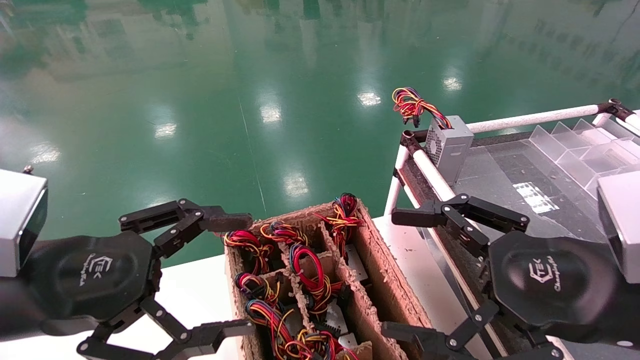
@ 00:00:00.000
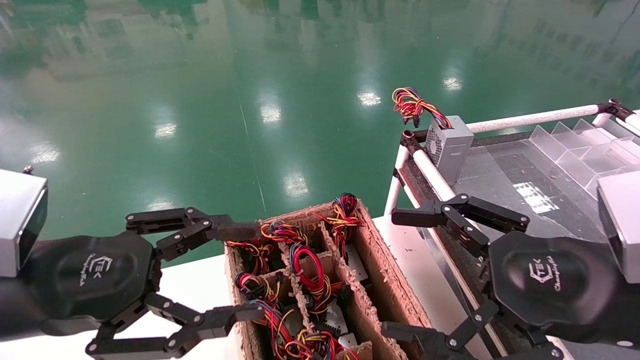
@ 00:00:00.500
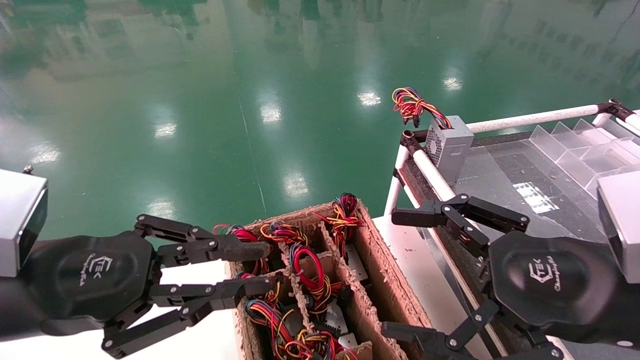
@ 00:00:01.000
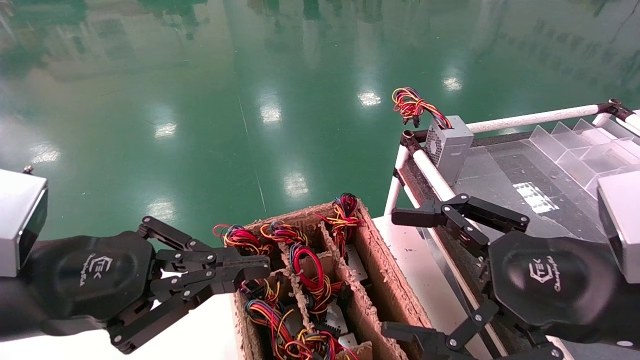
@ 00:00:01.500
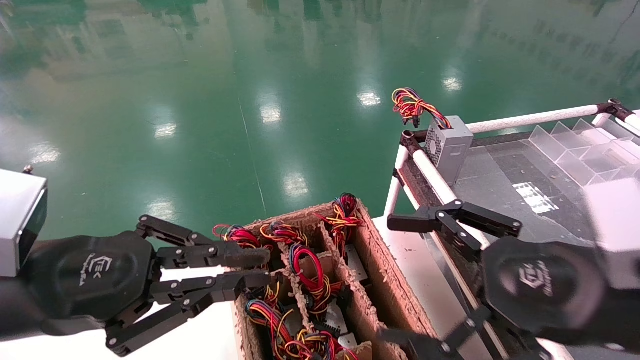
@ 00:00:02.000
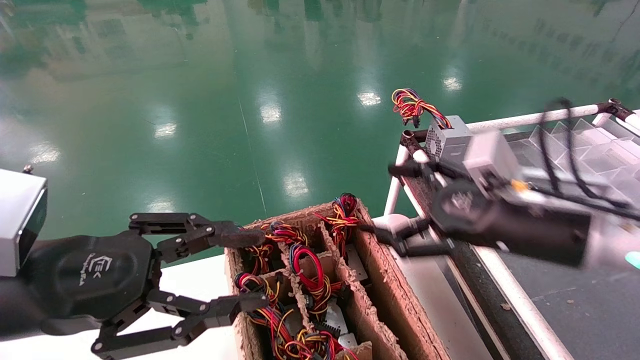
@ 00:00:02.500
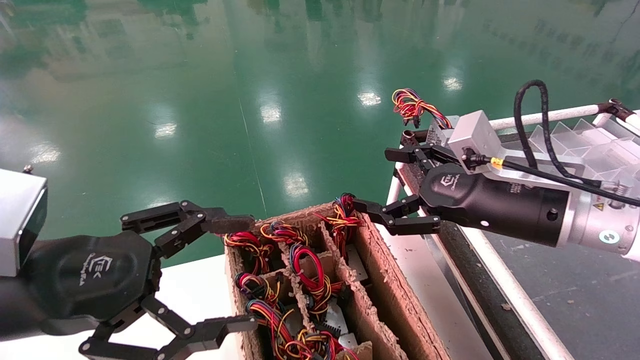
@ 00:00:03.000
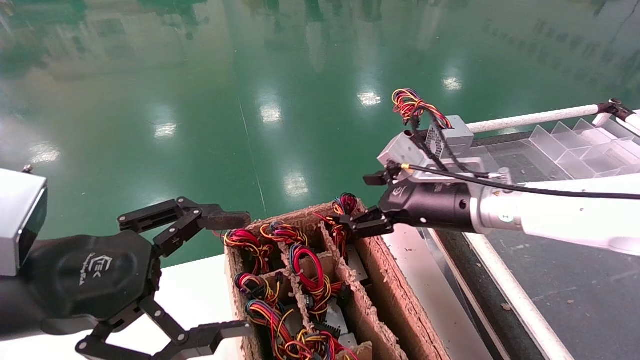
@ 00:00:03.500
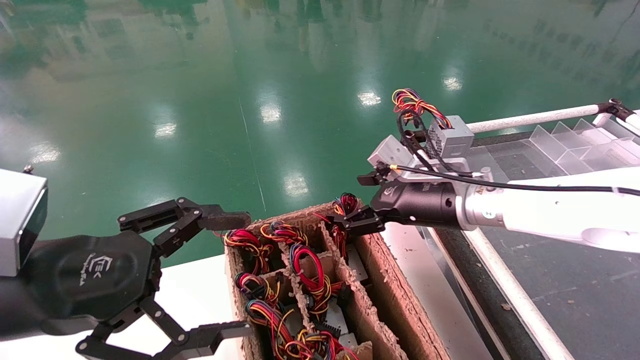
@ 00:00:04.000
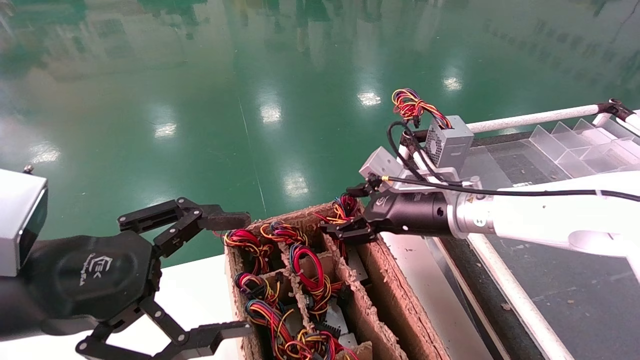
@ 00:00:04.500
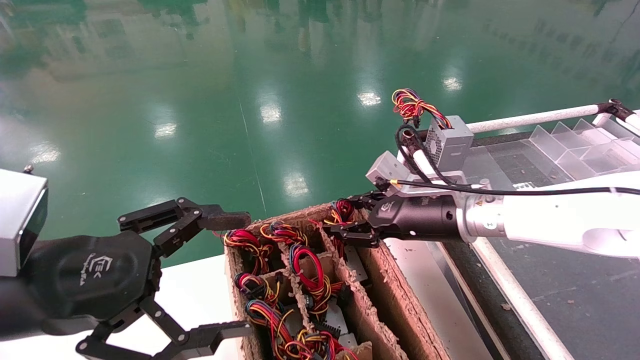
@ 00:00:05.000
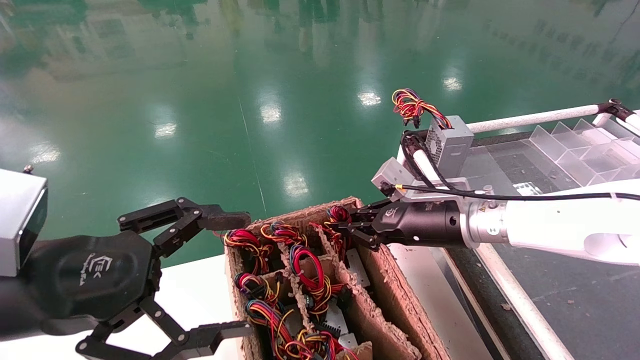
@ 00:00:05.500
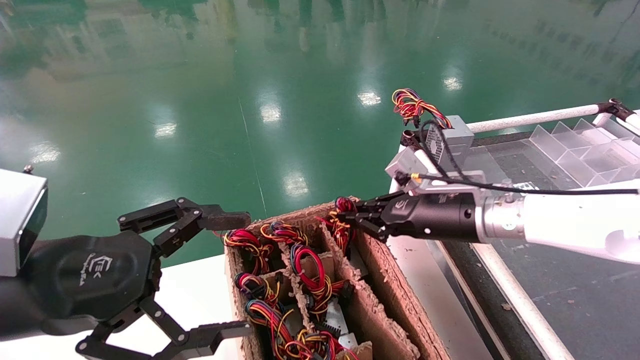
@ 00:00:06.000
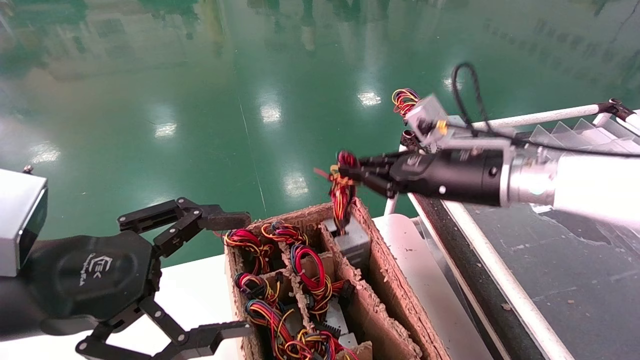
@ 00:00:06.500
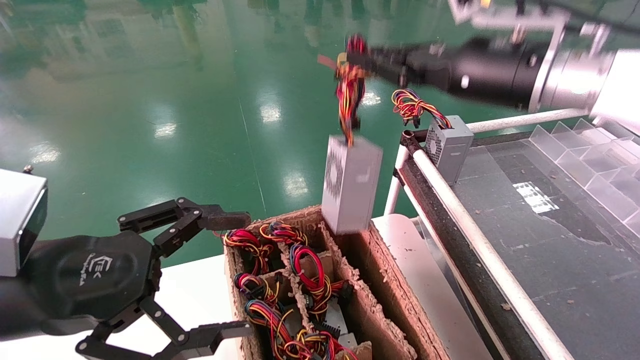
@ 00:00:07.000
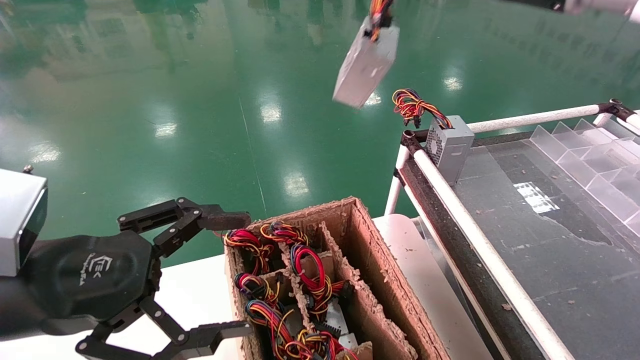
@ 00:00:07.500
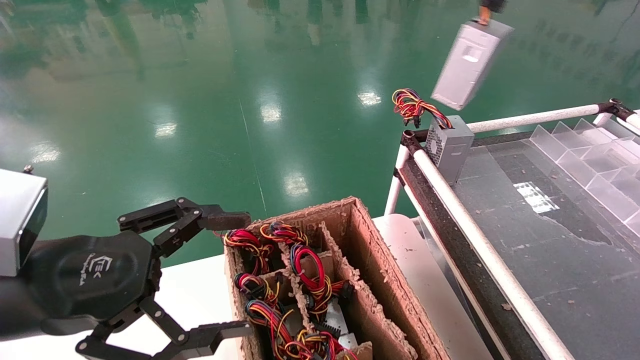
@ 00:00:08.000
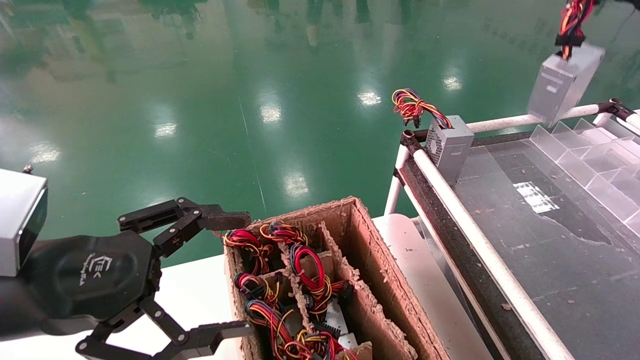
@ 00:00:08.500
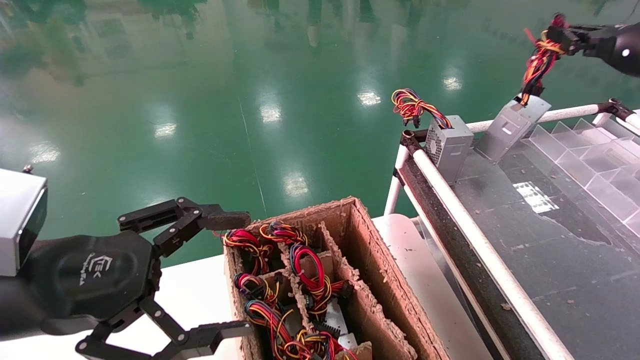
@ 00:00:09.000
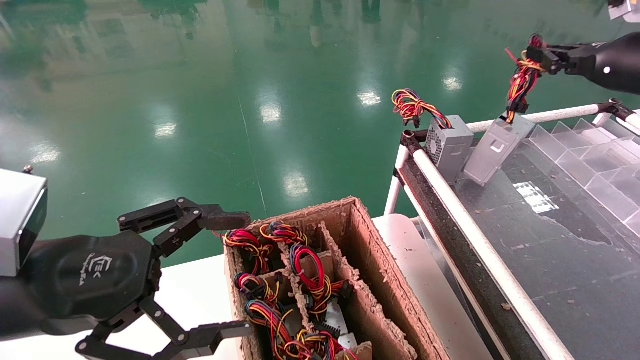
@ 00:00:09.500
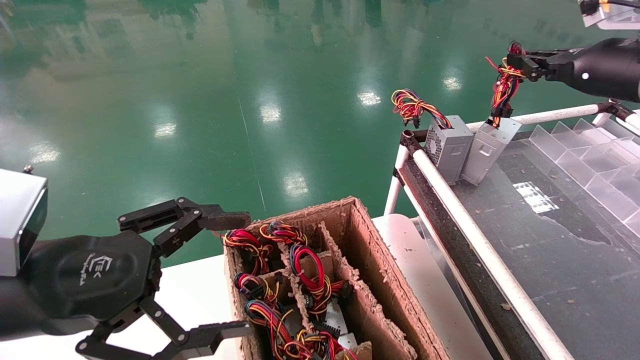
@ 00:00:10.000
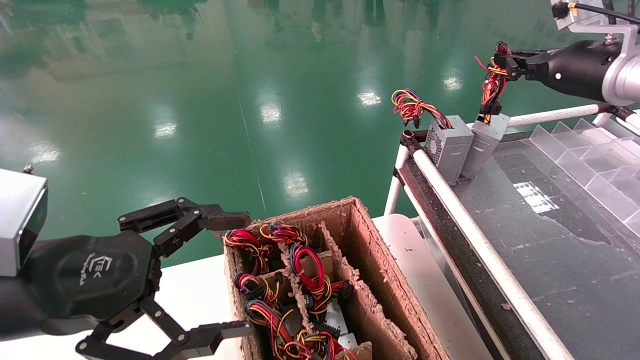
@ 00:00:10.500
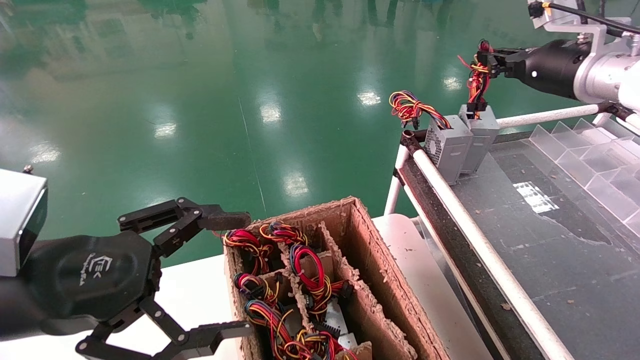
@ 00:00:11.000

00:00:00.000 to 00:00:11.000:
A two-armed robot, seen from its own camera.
Step, 00:00:01.500 to 00:00:05.500: Grab and lift the power supply from the large box.
00:00:00.000 to 00:00:02.000: The left gripper closes its fingers.
00:00:02.000 to 00:00:03.500: The right gripper travels forward and to the left by about 20 cm. The left gripper opens.
00:00:03.500 to 00:00:05.500: The right gripper closes its fingers.
00:00:05.500 to 00:00:07.500: The right gripper is displaced upward by roughly 30 cm.
00:00:07.500 to 00:00:09.000: The right gripper travels to the right by approximately 15 cm.
00:00:09.000 to 00:00:11.000: The right gripper is displaced to the left by some 10 cm.

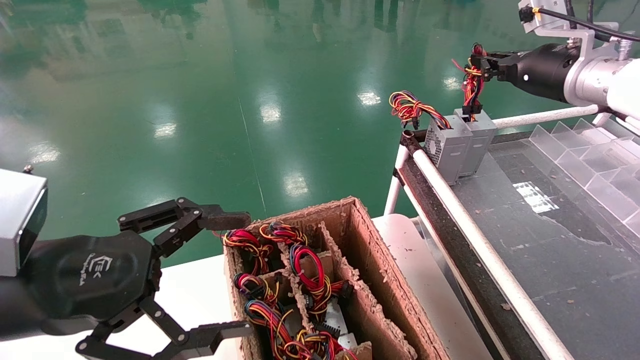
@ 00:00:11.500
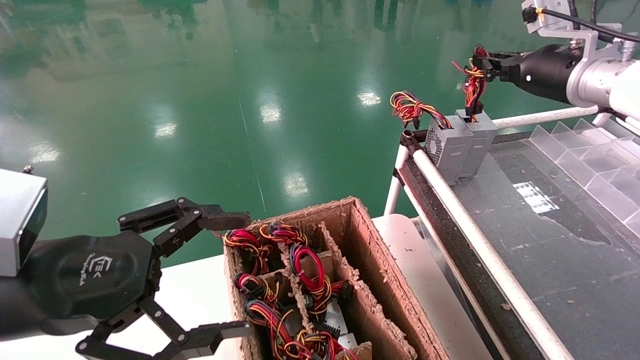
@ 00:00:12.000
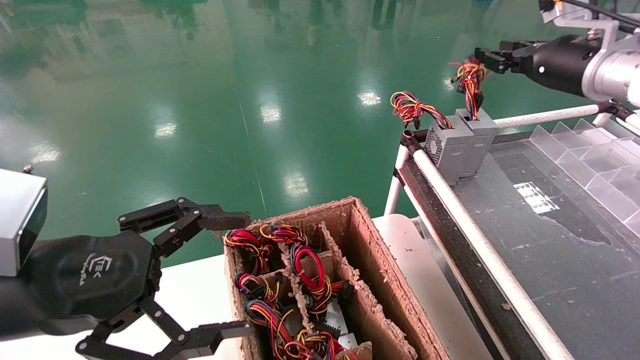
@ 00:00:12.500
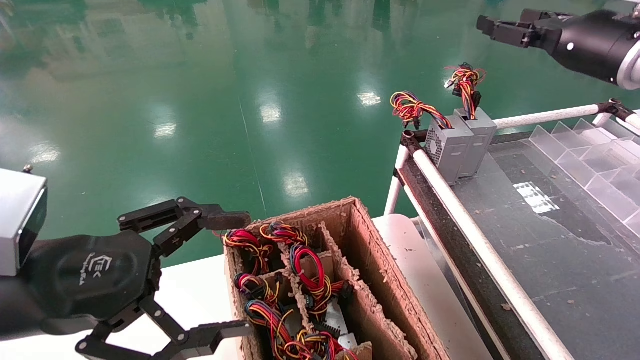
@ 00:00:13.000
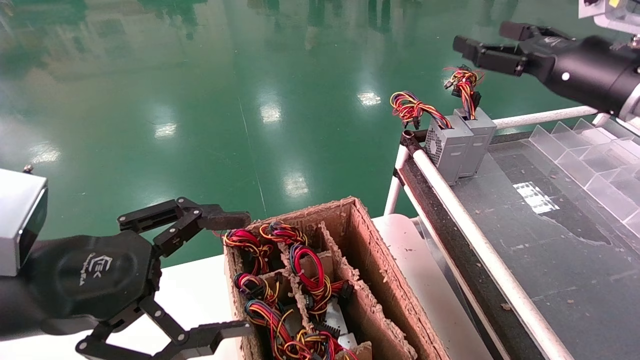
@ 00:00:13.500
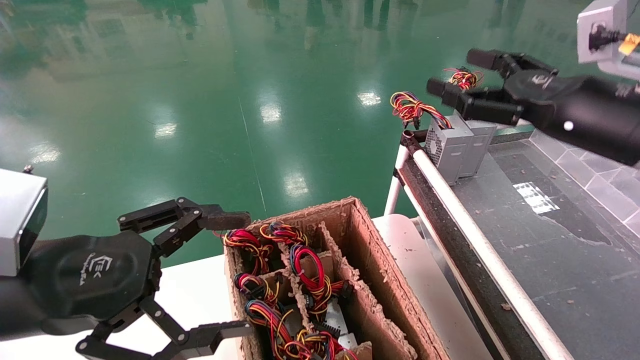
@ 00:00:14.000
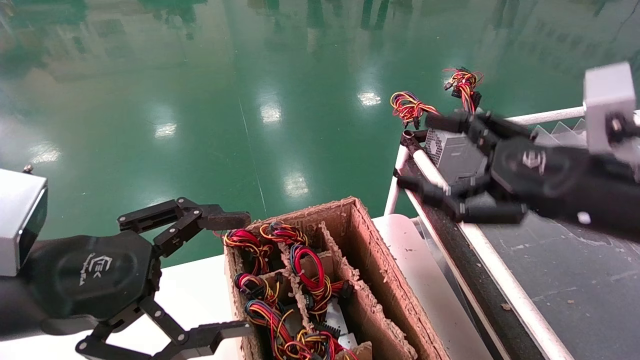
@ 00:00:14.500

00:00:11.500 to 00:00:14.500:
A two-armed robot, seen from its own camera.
00:00:11.500 to 00:00:13.000: The right gripper opens up.
00:00:13.000 to 00:00:14.500: The right gripper is displaced backward, downward and to the left by roughly 20 cm, and opens.
